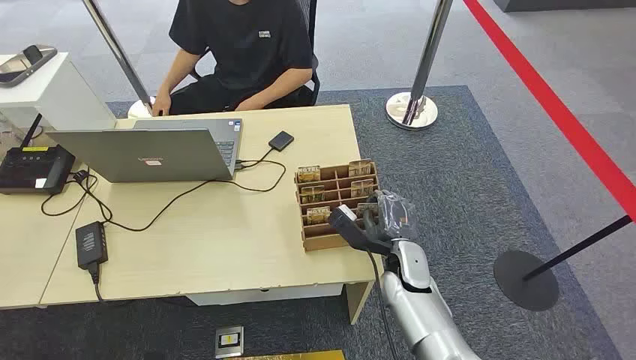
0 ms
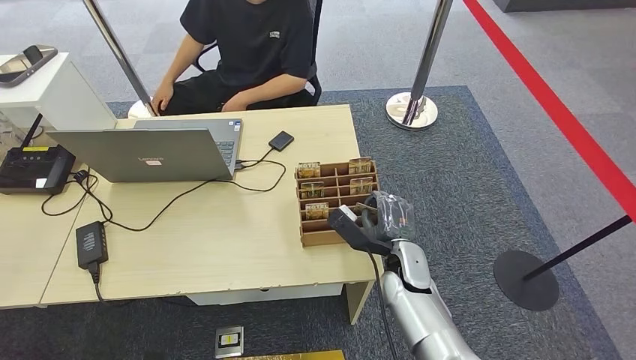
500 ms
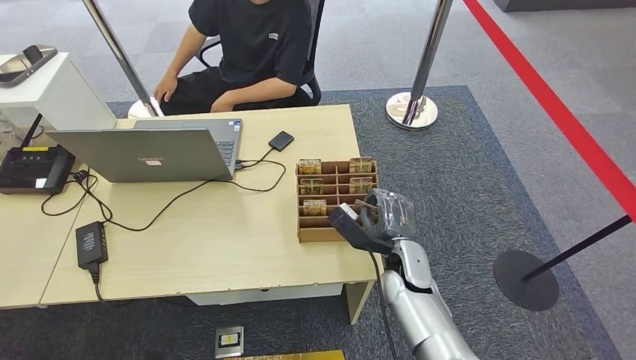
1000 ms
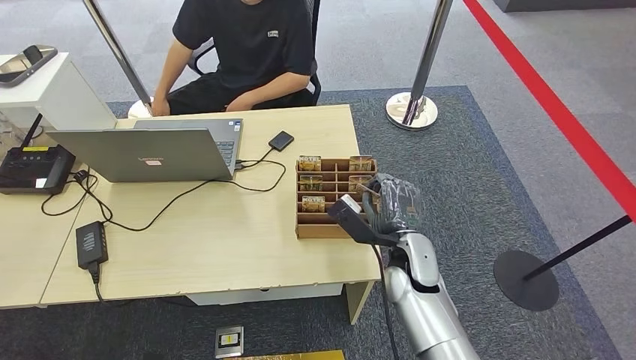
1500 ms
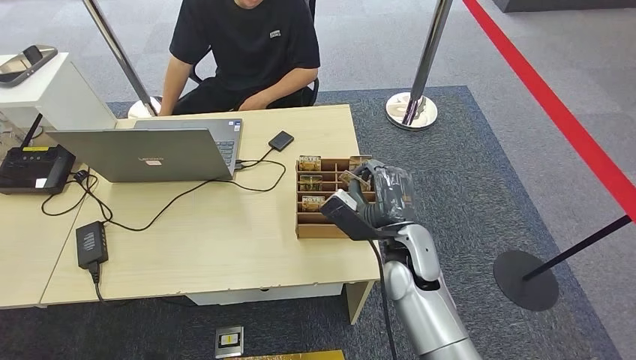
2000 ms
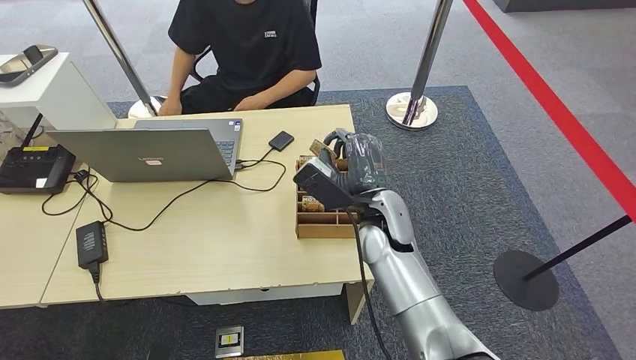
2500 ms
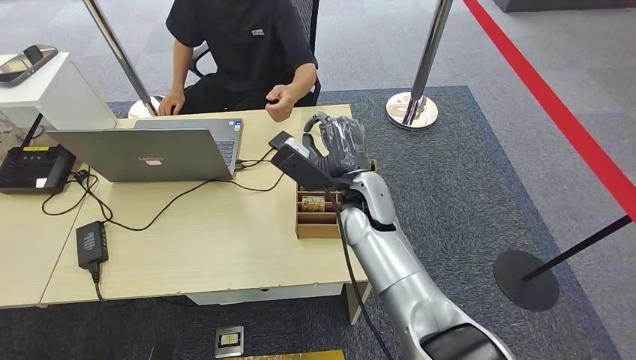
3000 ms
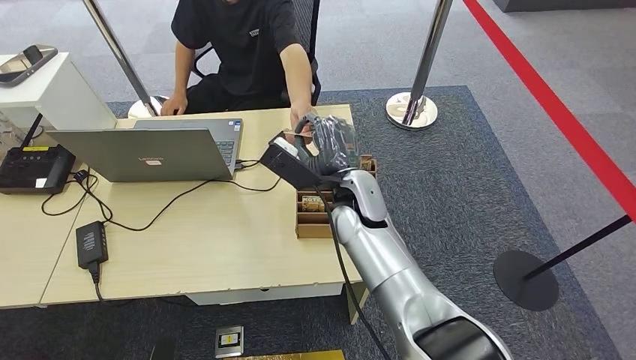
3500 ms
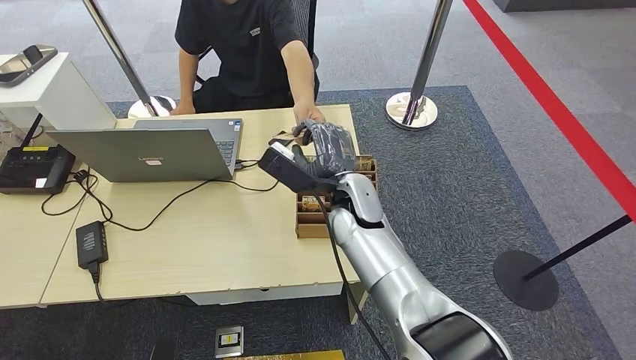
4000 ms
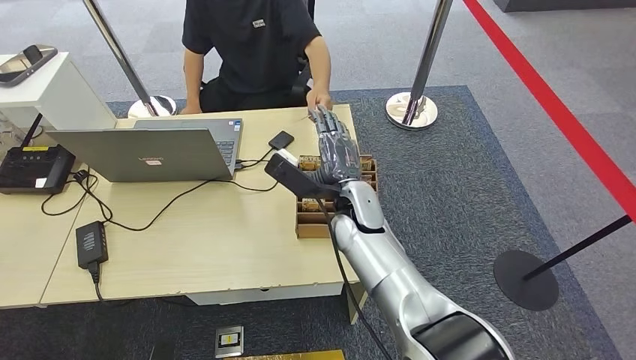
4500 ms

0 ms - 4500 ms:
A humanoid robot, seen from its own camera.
Step, 0 ms - 2000 ms: Pick up the room card from the card holder.
Step, 2500 ms - 4500 ms: Hand the room card to the target.
2000 ms - 4500 ms: The right hand goes some 10 cm forward and to the left.
